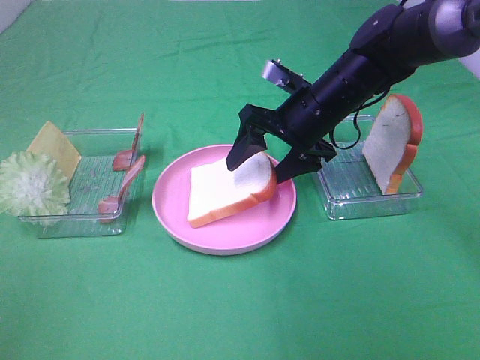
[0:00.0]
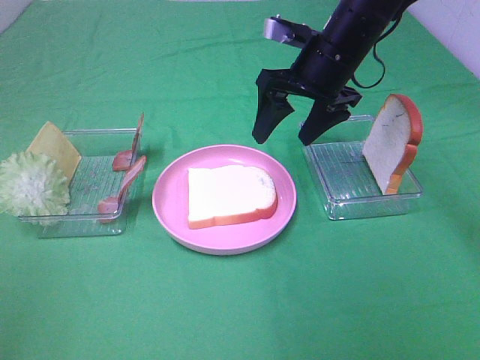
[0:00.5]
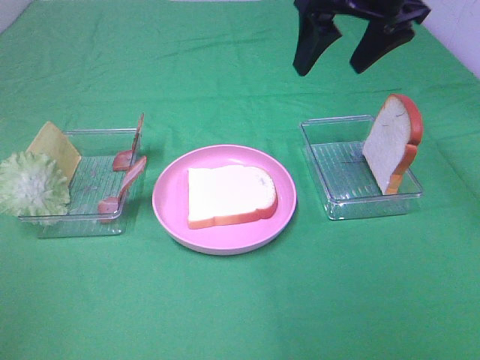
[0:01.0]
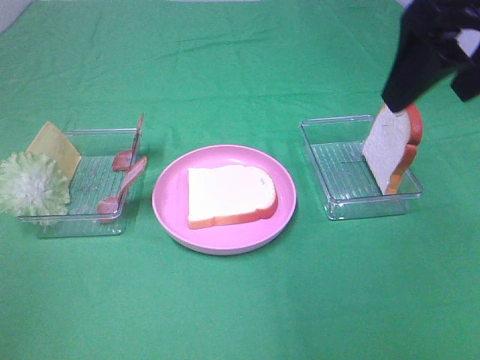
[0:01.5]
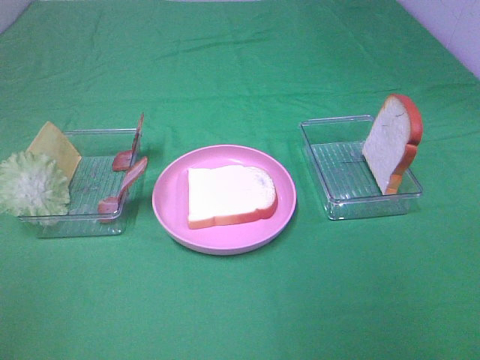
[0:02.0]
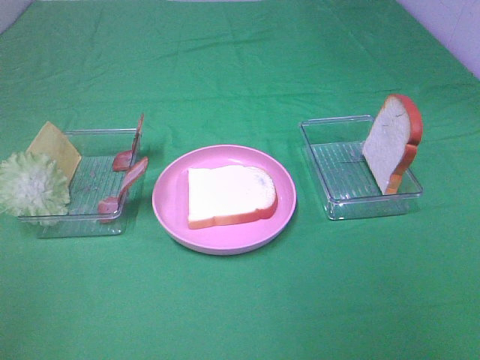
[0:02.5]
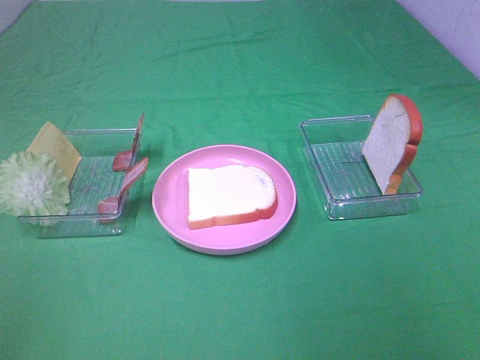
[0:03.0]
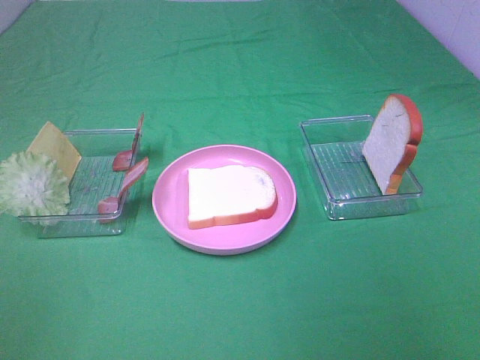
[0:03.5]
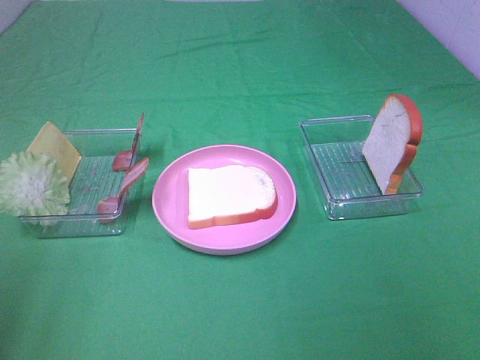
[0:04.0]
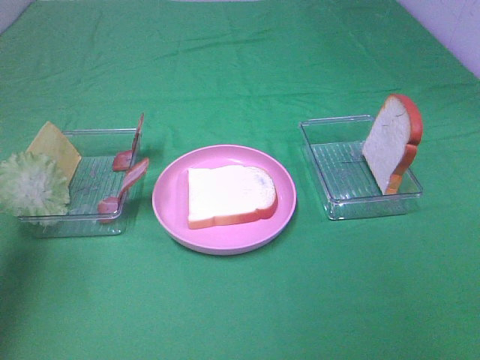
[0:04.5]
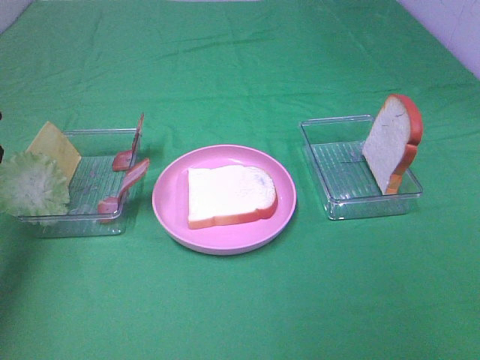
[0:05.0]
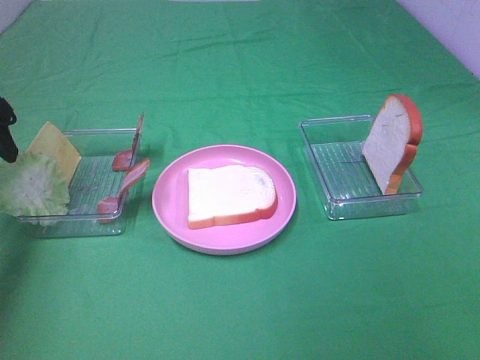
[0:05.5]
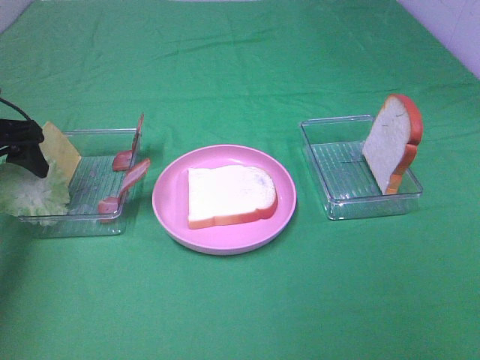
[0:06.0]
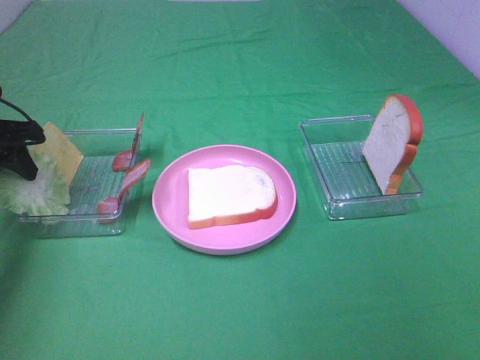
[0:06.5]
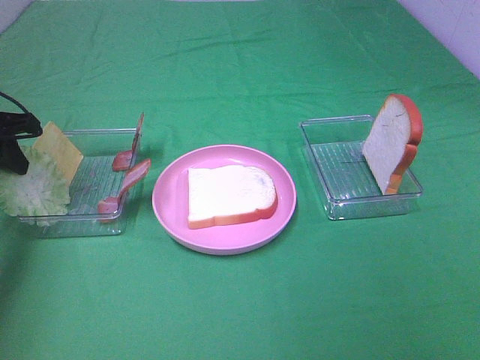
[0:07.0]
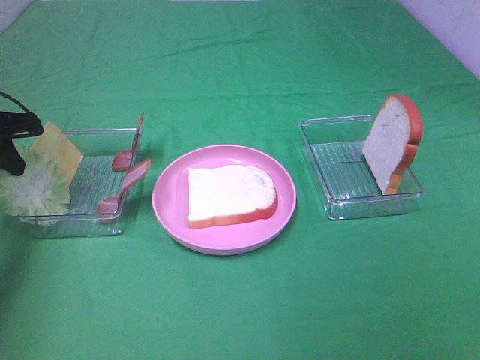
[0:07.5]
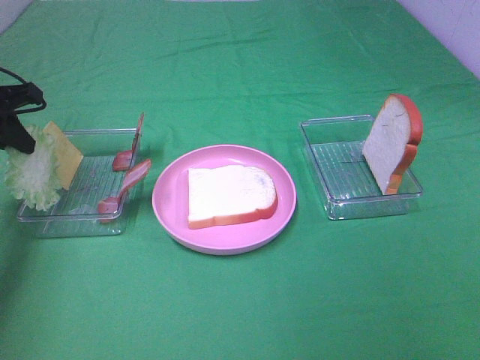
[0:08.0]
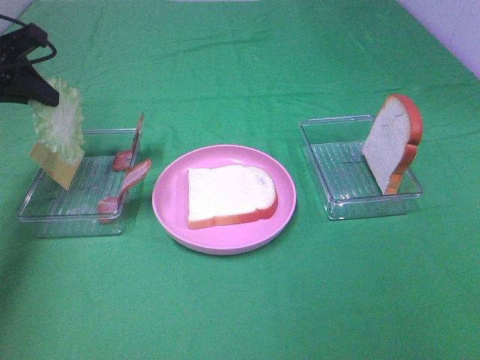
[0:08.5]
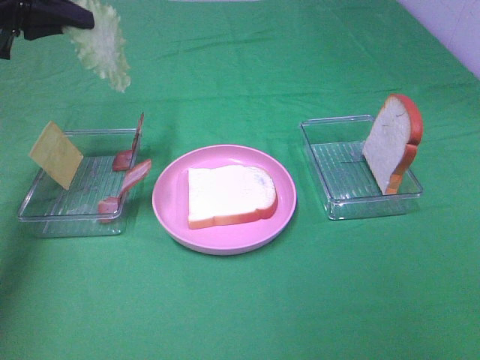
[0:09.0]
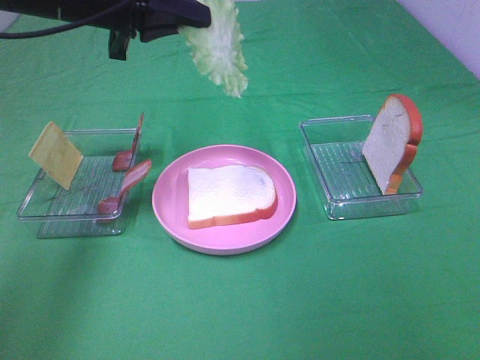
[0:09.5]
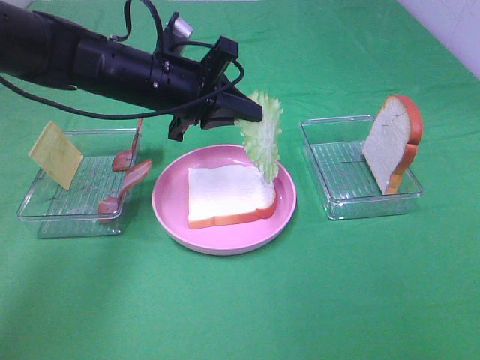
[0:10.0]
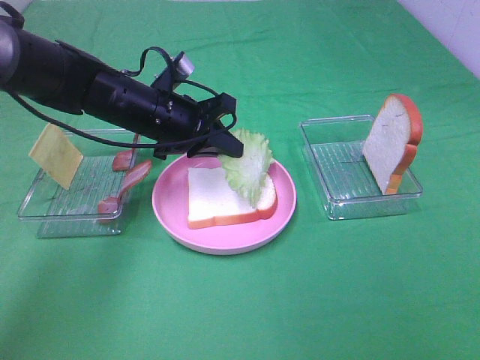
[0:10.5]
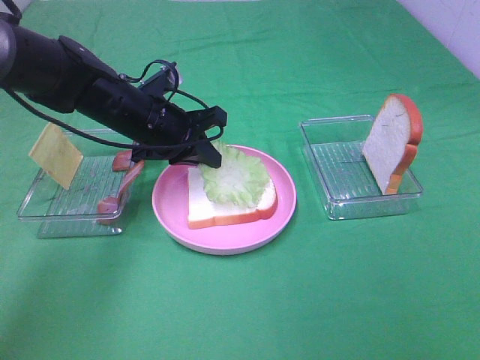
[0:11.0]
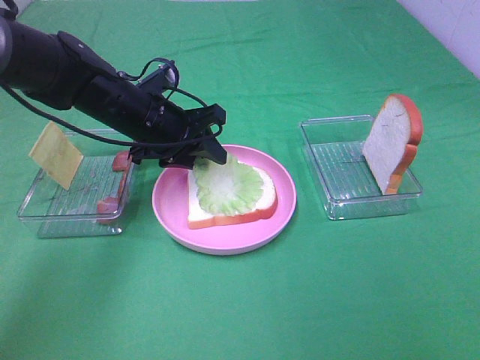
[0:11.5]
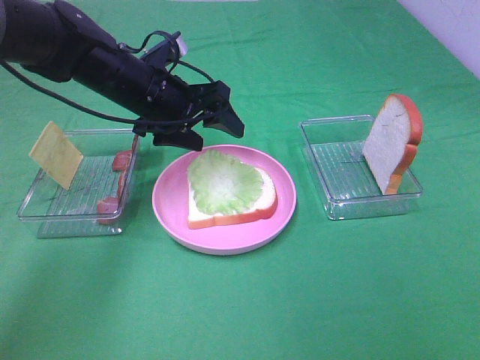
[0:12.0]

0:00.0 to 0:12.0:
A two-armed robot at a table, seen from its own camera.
Task of the whole recording: Make sandwiches.
Step, 0:00.5 to 0:07.5: Right hand:grab the lettuce slice.
0:00.0 to 0:02.0: The right gripper moves backward, upward and to the right, approximately 40 cm.
0:04.0 to 0:06.0: The left gripper heads forward and downward, covering approximately 30 cm.
0:06.0 to 0:08.0: The left gripper closes.
0:08.0 to 0:10.0: The left gripper is displaced to the right by about 20 cm.
0:10.0 to 0:12.0: The left gripper opens.

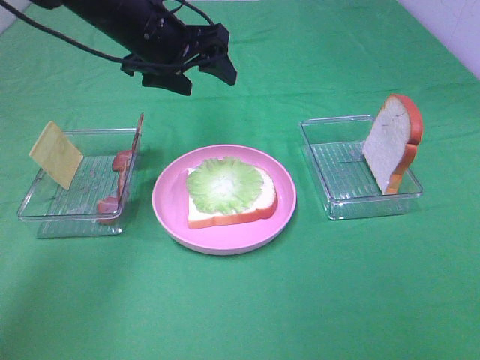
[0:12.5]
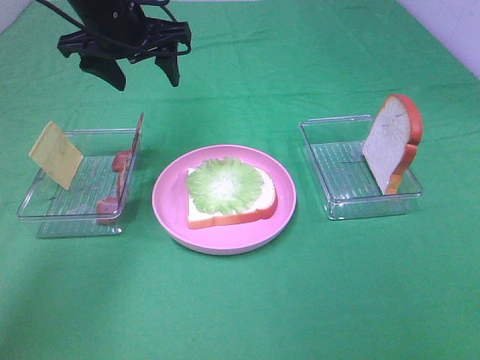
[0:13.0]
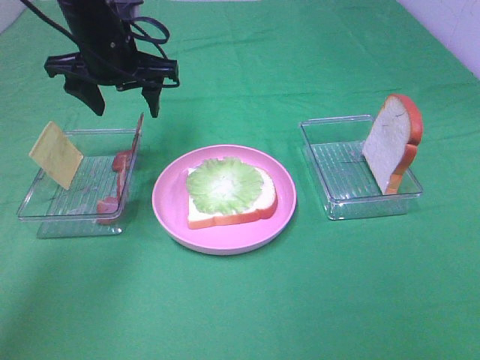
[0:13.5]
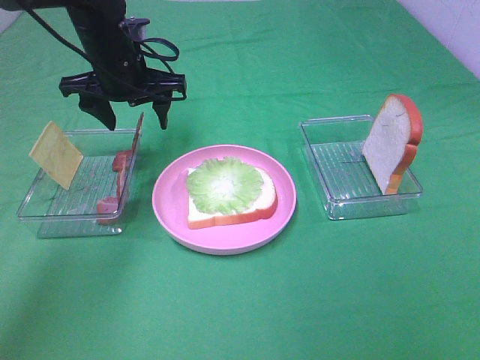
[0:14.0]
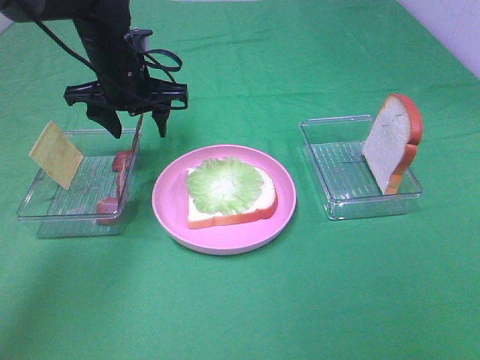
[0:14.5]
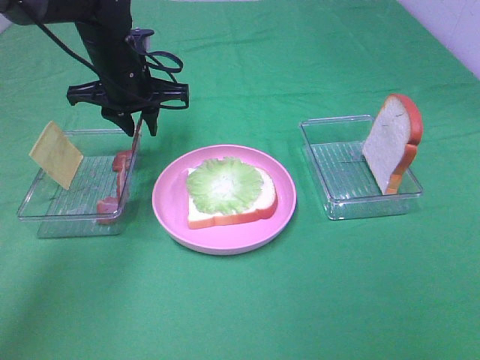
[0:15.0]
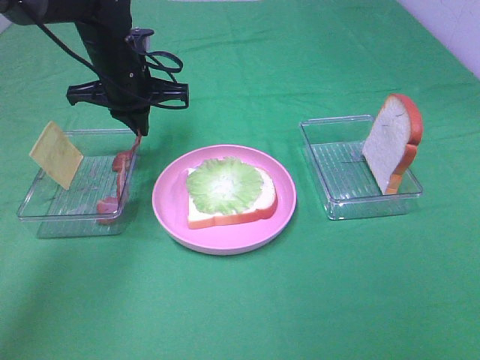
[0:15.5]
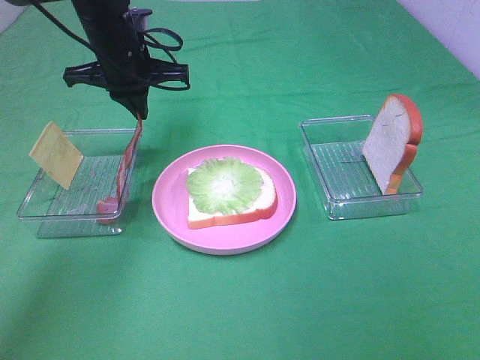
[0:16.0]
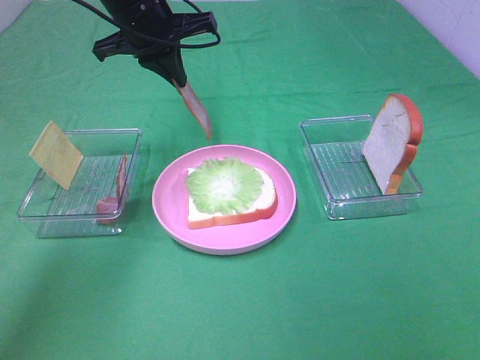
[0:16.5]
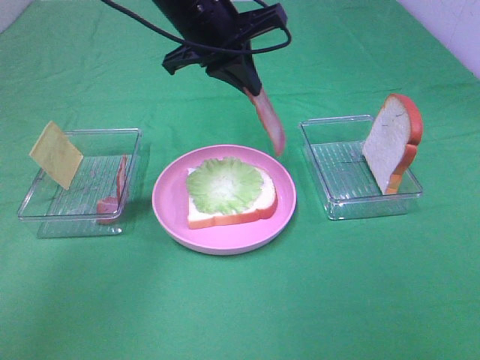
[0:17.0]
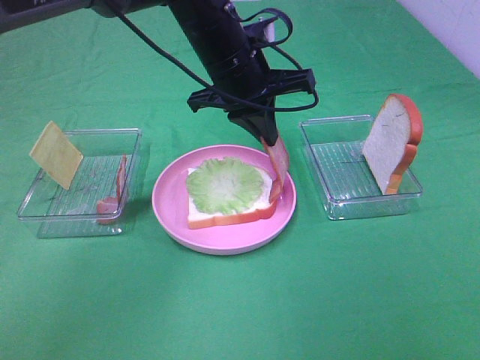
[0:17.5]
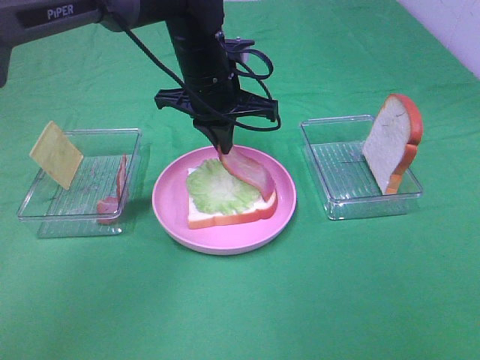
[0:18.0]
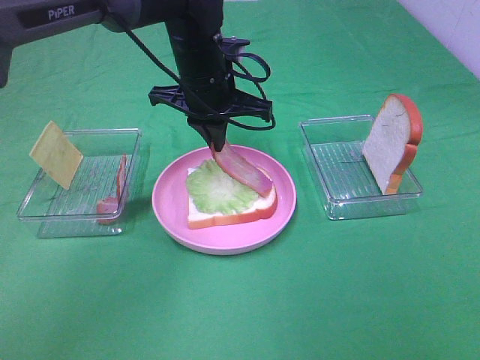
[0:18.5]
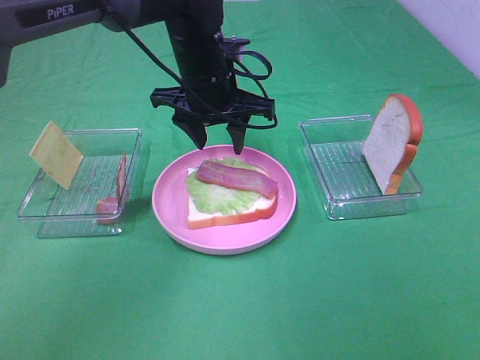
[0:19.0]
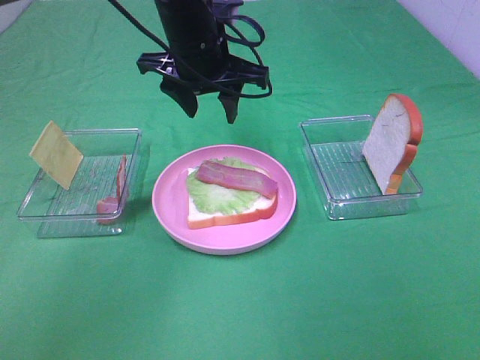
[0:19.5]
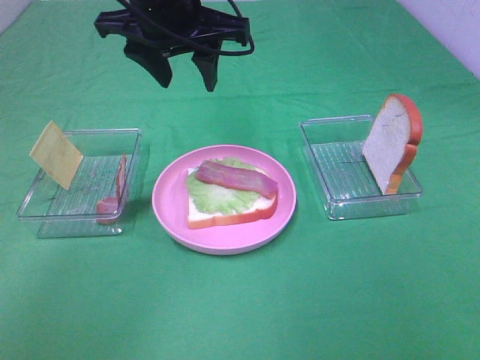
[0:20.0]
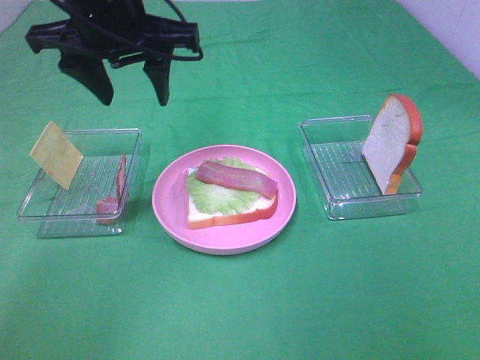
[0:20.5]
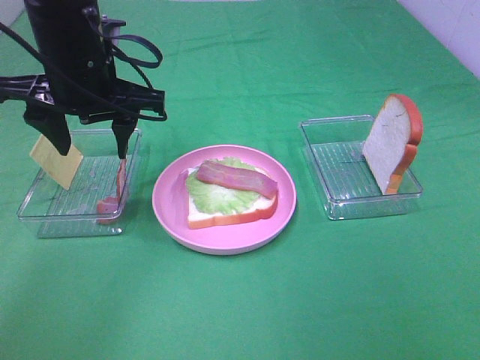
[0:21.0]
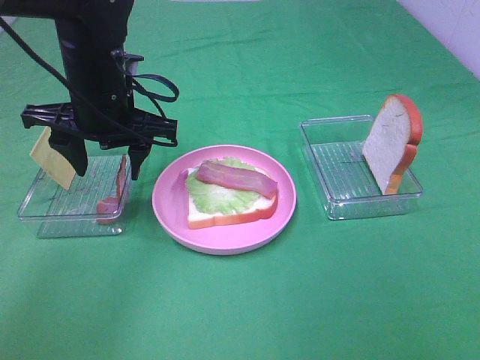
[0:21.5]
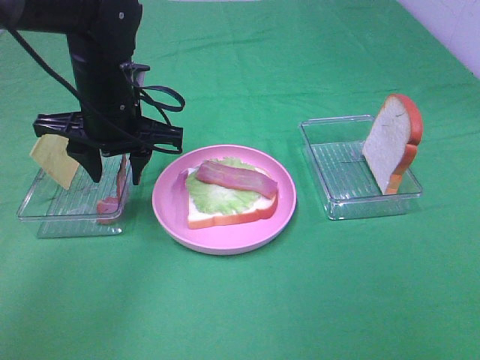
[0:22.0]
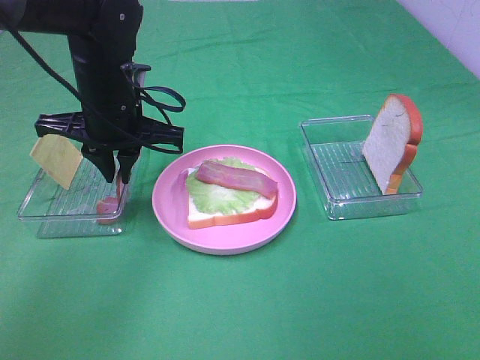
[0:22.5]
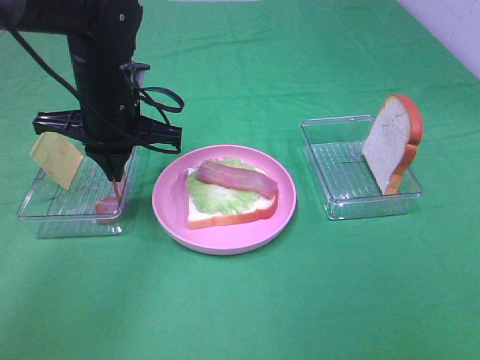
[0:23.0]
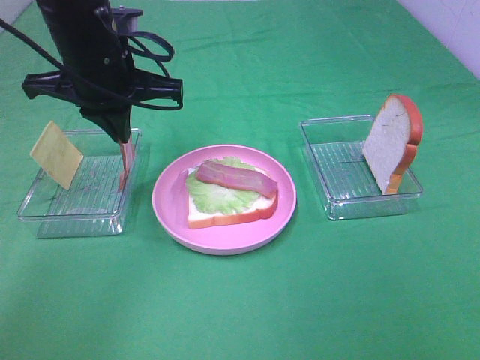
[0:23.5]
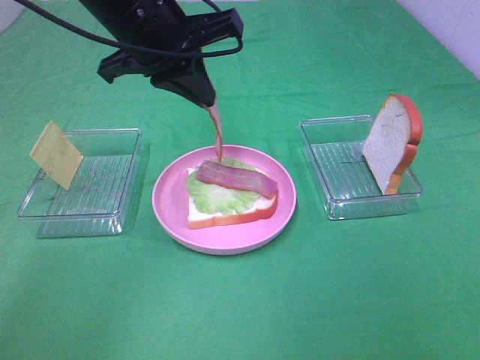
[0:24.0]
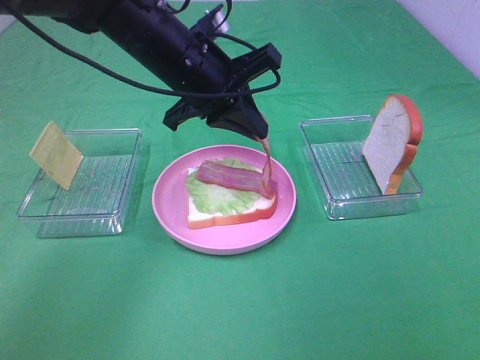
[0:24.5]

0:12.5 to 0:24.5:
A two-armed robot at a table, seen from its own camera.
Task of the whole recording: Make sandwiches.
Step, 0:12.5 to 0:15.5: Left hand:grab the bacon.
Step, 0:16.0 to 0:19.0: Left hand:place bacon on lettuce slice.
Step, 0:19.5 to 0:22.5: Left hand:grab the bacon.
0:12.5 to 0:14.5: The left gripper is displaced downward by about 5 cm.
0:14.5 to 0:16.5: The left gripper is displaced upward by some 10 cm, and closes up.
0:16.5 to 0:18.5: The left gripper heads to the right and downward, covering roughly 10 cm.
0:18.5 to 0:20.5: The left gripper moves upward, to the left and backward, about 15 cm, and opens up.
0:20.5 to 0:22.5: The left gripper moves downward, roughly 10 cm, and closes its fingers.
0:22.5 to 0:24.5: The left gripper is displaced to the right by roughly 10 cm, and moves some 10 cm upward and comes back.

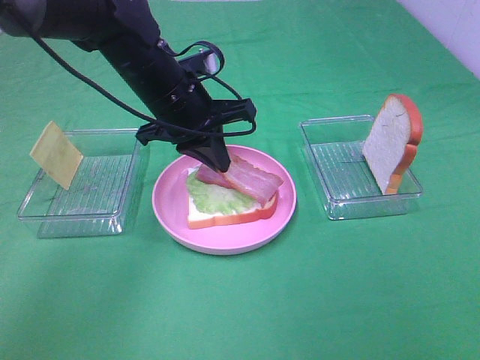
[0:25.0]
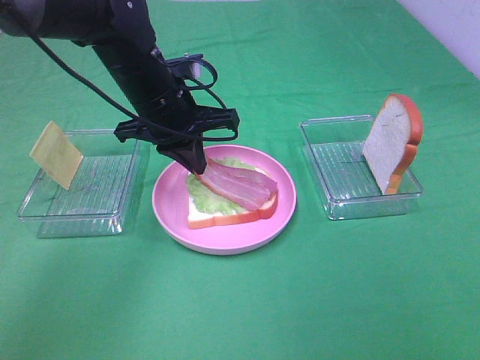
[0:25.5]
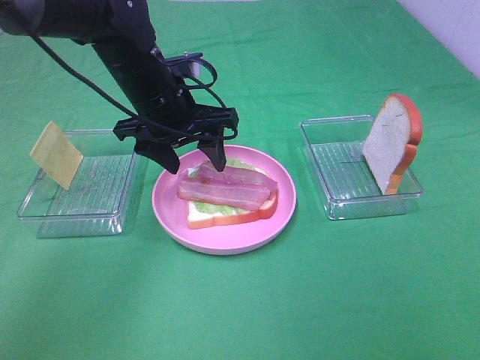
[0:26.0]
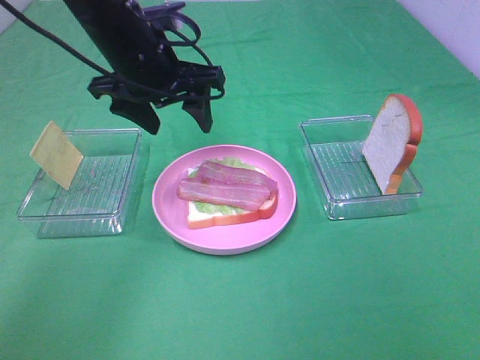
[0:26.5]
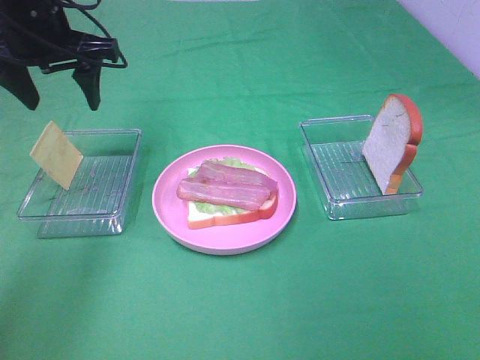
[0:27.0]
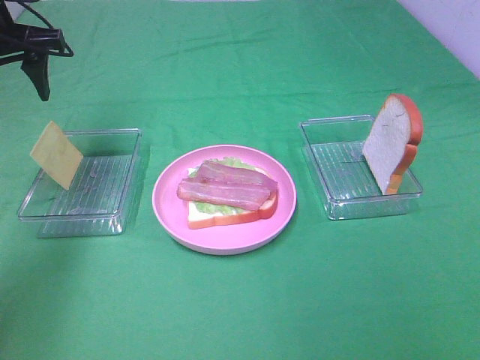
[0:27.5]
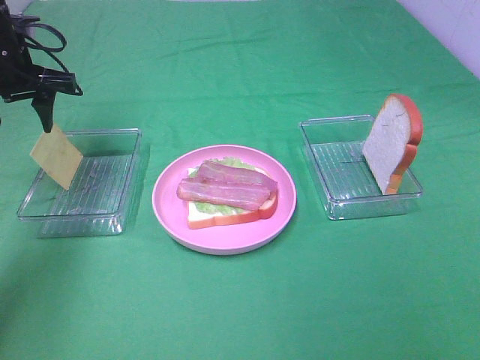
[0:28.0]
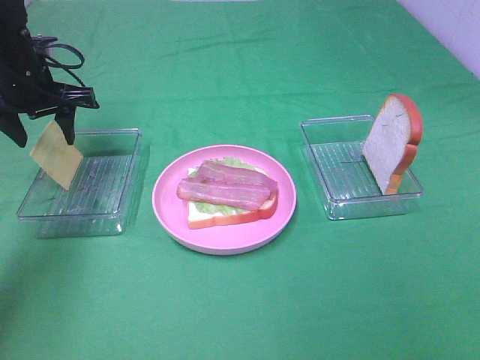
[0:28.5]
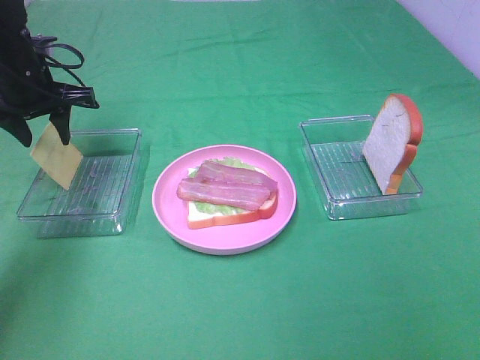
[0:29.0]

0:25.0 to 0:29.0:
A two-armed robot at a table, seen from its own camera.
Task of the whole recording: Make sandwiches.
0:25.0 to 0:27.0: The left gripper shifts some 15 cm to the left and upward, and opens.
0:27.0 to 0:29.0: The left gripper shifts roughly 10 cm downward and to the left.
